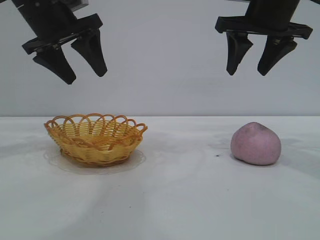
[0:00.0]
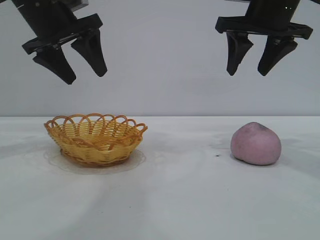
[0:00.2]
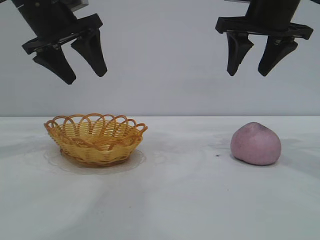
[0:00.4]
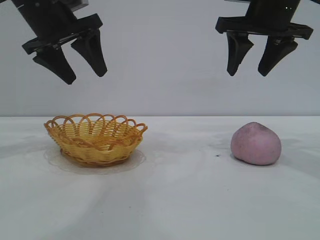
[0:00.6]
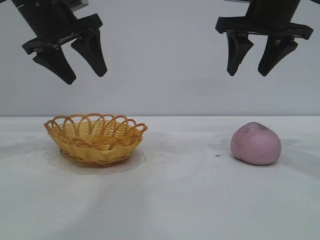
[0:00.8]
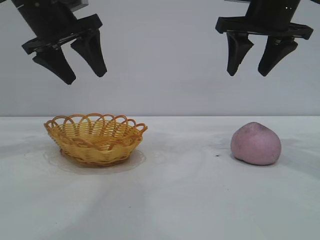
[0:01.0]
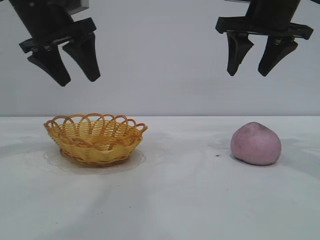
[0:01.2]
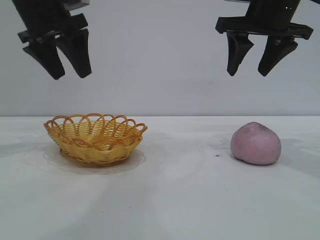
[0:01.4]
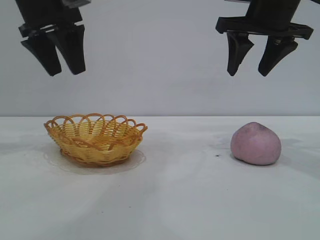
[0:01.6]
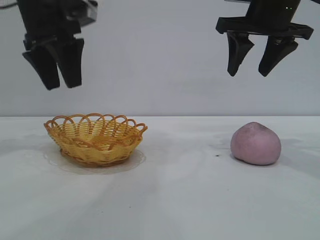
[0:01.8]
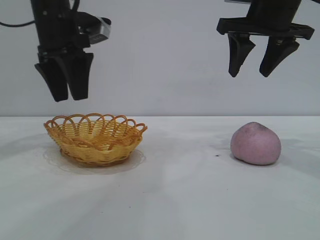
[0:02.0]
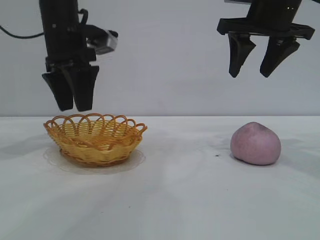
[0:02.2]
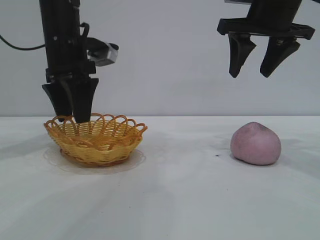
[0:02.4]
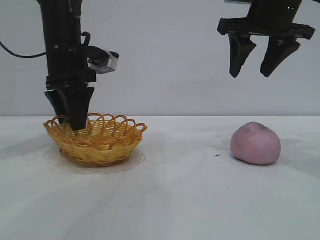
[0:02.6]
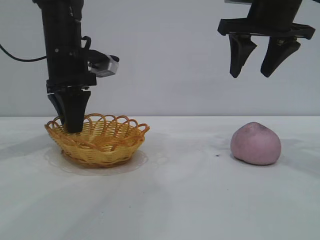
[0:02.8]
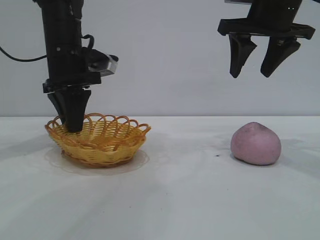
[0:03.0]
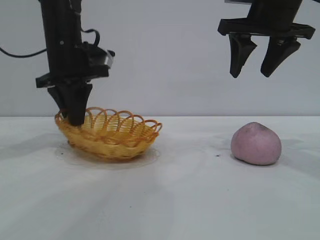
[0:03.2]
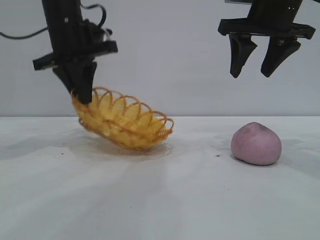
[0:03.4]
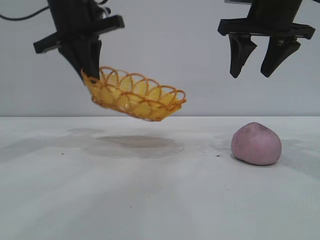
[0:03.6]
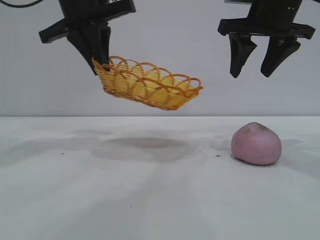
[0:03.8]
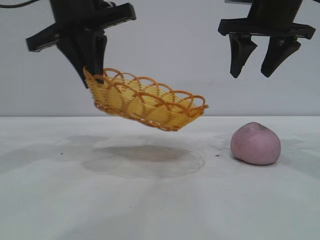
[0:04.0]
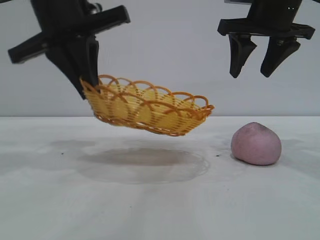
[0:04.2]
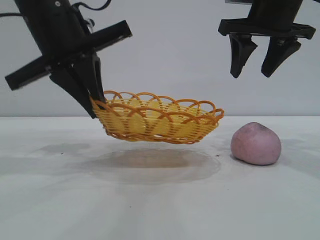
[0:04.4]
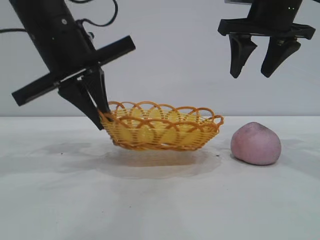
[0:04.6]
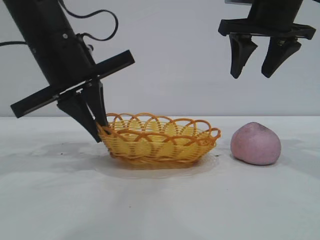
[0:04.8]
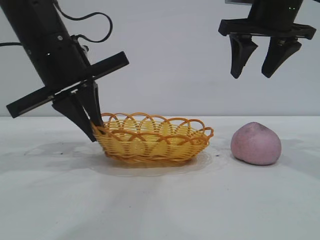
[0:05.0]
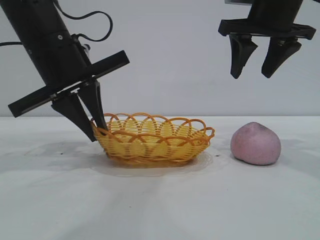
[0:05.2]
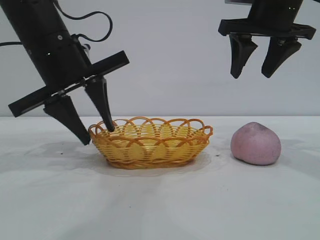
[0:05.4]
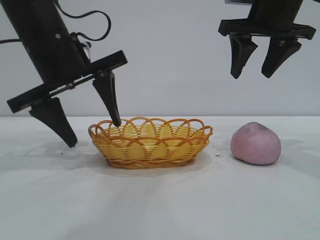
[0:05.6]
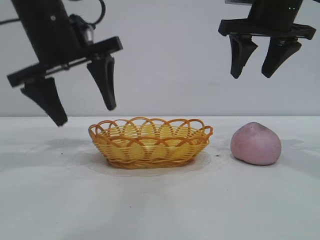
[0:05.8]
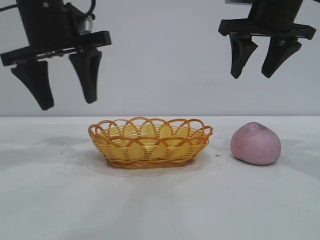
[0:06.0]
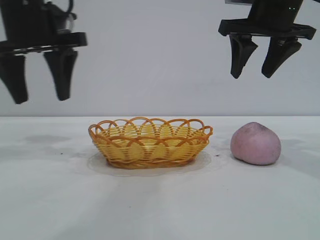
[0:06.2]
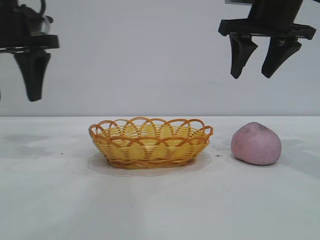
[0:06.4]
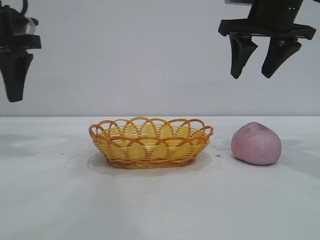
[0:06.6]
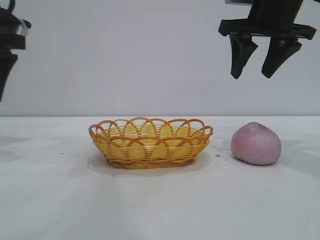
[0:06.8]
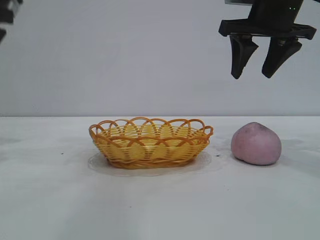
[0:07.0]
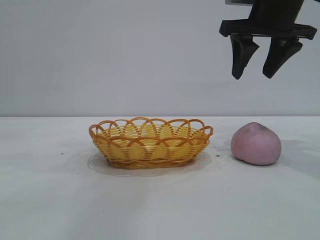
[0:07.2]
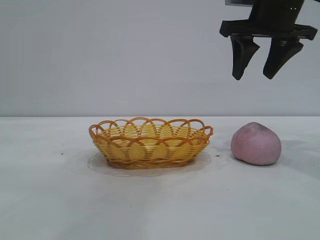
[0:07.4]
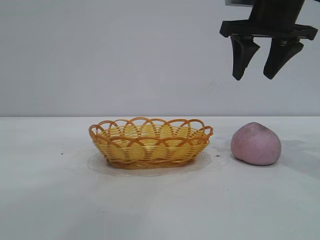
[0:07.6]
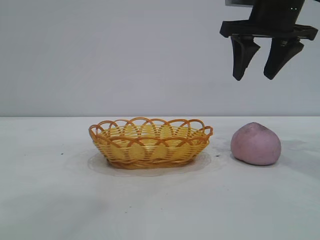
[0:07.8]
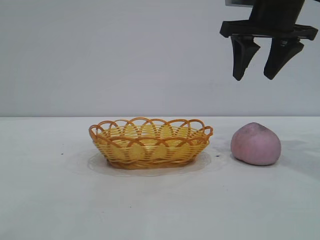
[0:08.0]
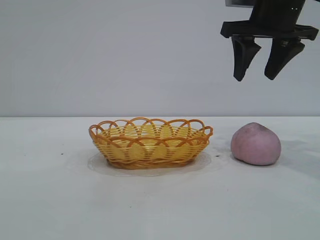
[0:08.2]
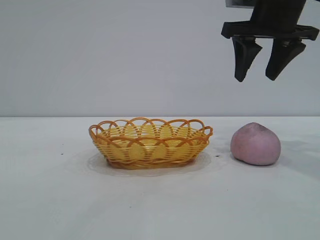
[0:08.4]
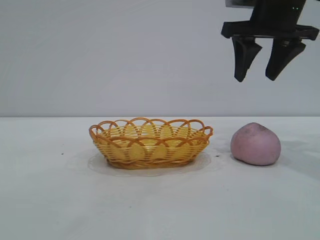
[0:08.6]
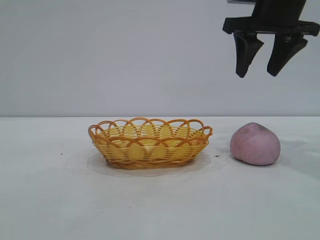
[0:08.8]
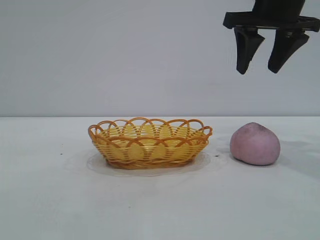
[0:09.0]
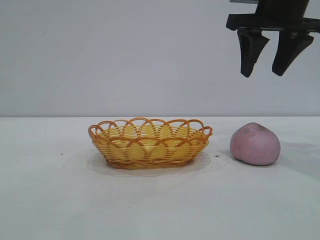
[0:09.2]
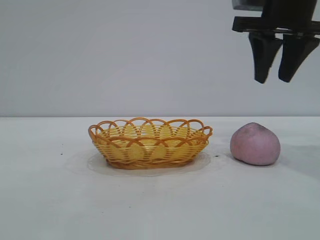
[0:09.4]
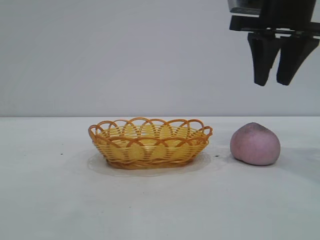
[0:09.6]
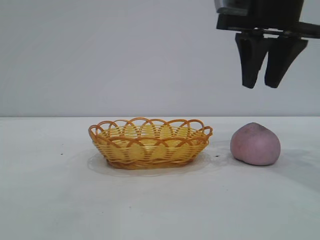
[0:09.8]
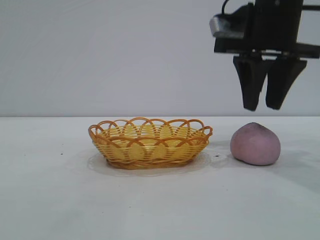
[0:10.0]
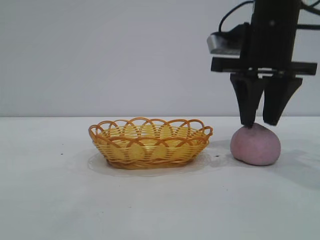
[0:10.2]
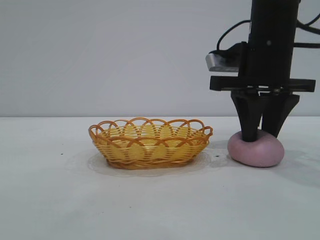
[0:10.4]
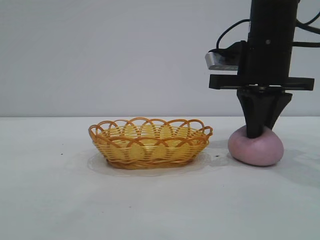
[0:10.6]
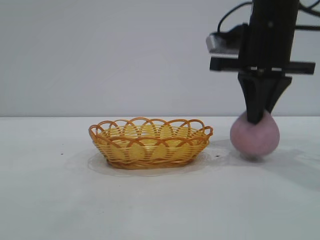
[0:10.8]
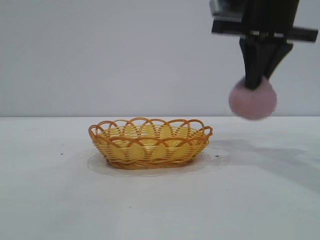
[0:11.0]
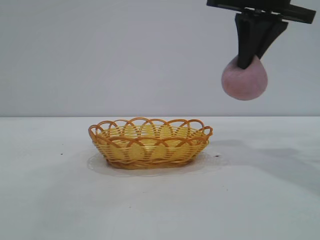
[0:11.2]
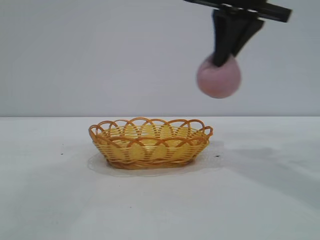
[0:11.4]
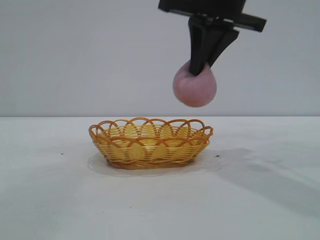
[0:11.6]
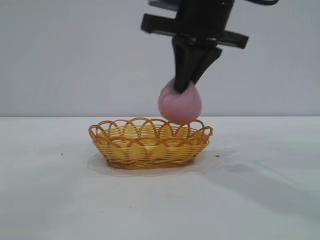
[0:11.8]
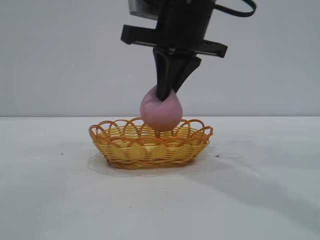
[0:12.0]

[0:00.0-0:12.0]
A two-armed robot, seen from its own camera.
Task of the whole recording: pick up the peach and put it into the basket.
Step, 0:00.0 to 0:06.0: Move the basket to the center of view.
Step, 0:06.2 to 0:11.0: Pick up the peach.
